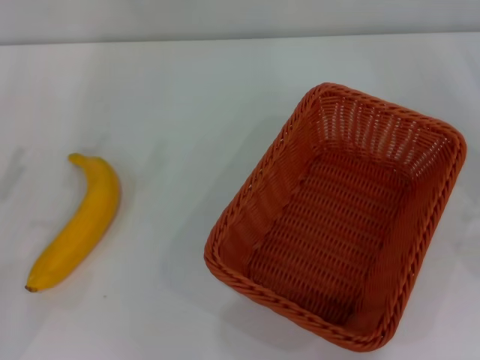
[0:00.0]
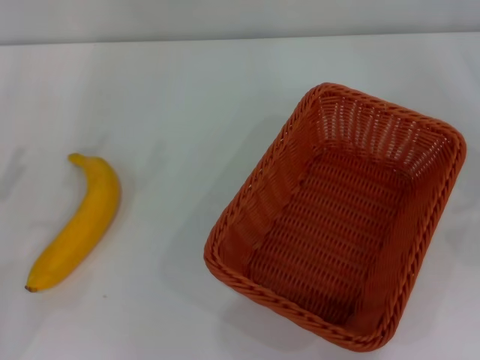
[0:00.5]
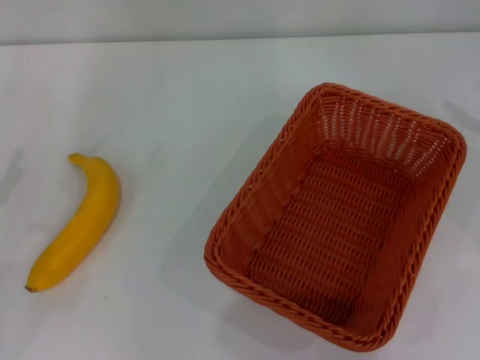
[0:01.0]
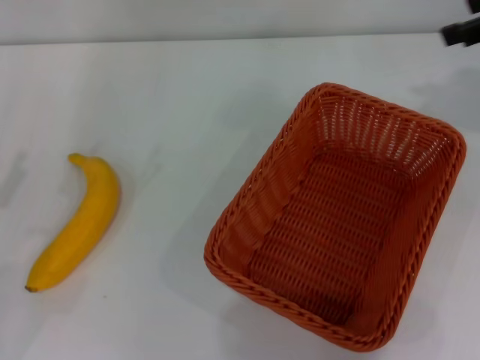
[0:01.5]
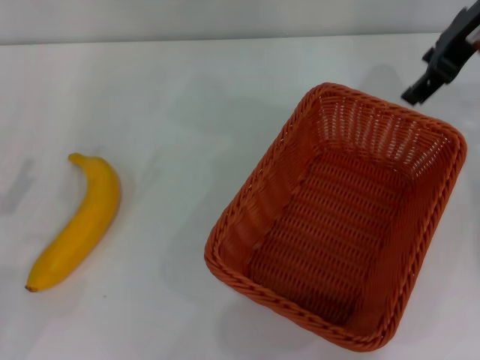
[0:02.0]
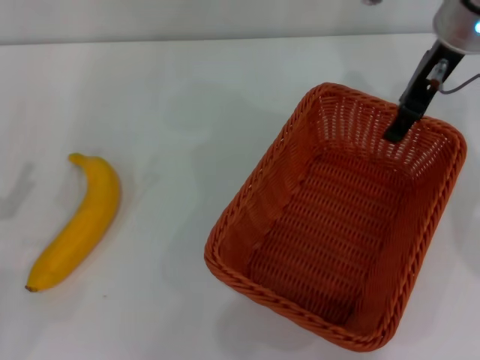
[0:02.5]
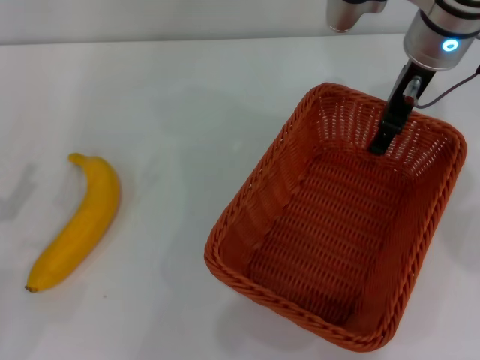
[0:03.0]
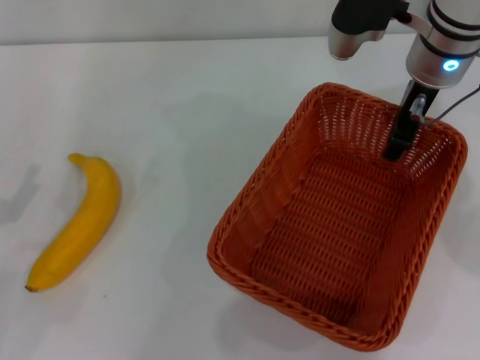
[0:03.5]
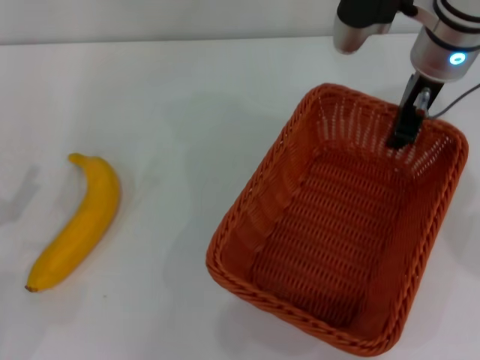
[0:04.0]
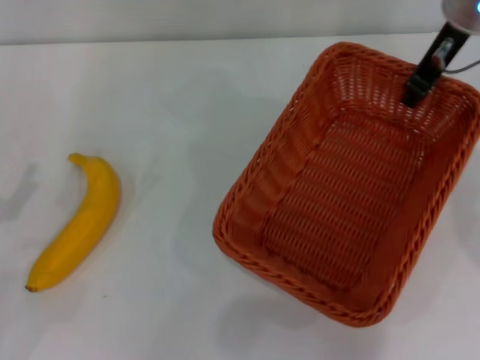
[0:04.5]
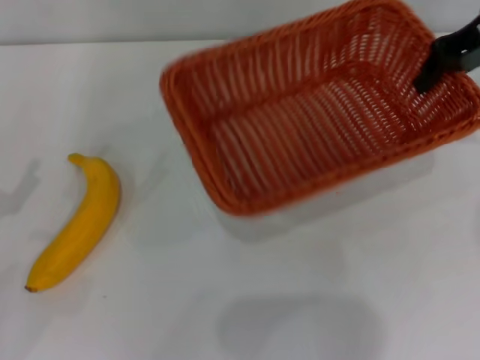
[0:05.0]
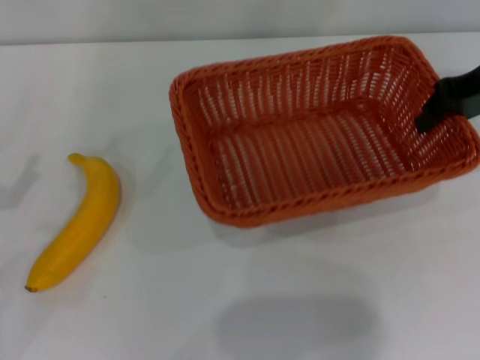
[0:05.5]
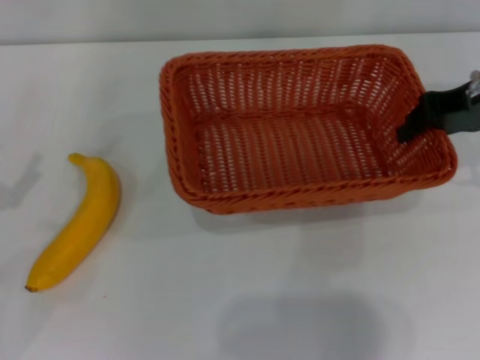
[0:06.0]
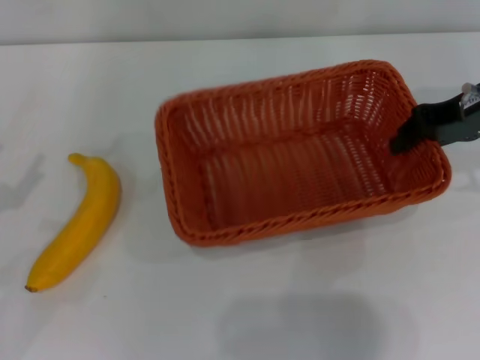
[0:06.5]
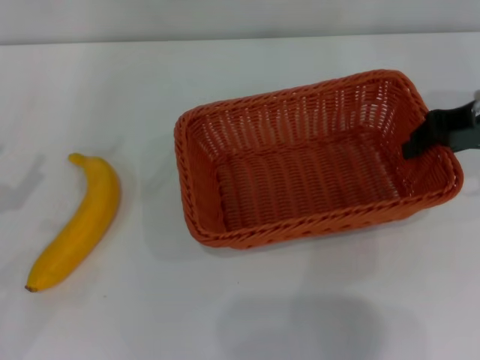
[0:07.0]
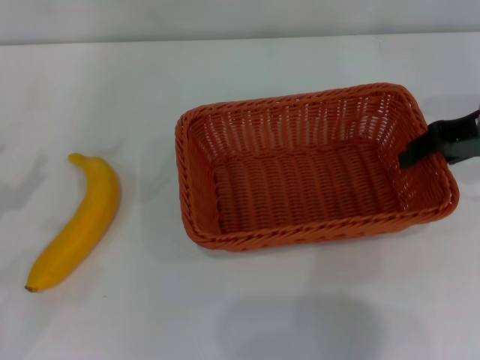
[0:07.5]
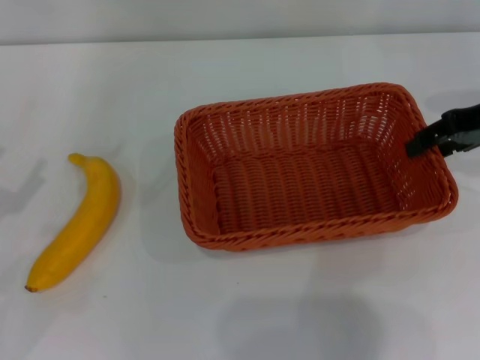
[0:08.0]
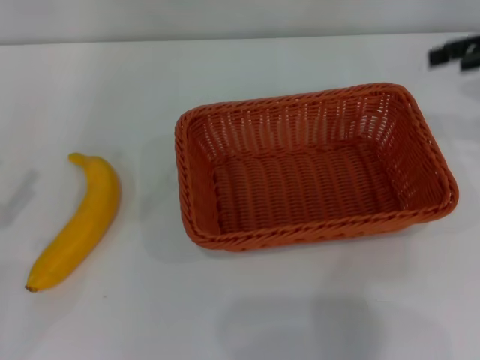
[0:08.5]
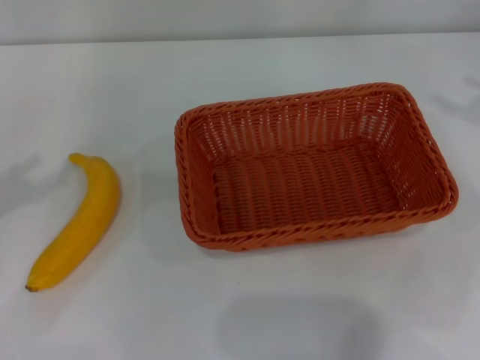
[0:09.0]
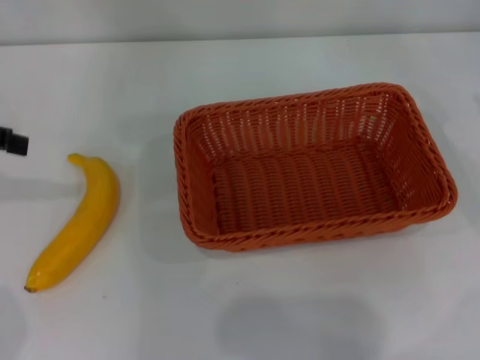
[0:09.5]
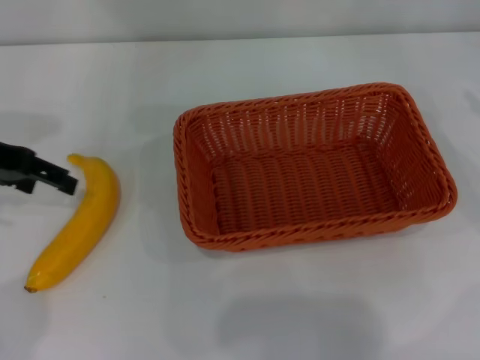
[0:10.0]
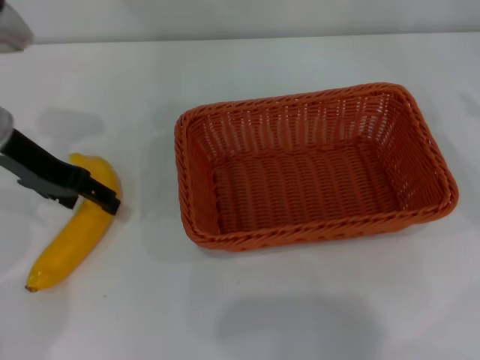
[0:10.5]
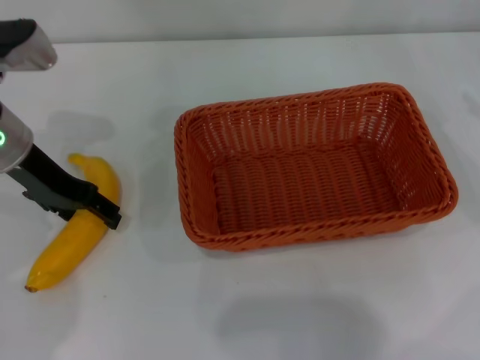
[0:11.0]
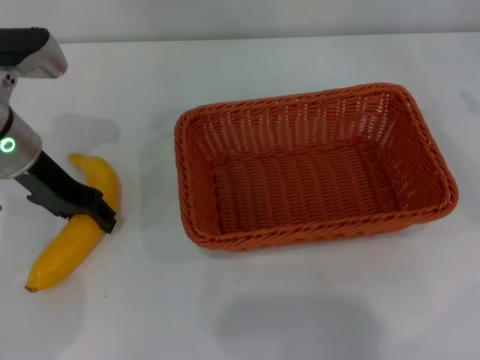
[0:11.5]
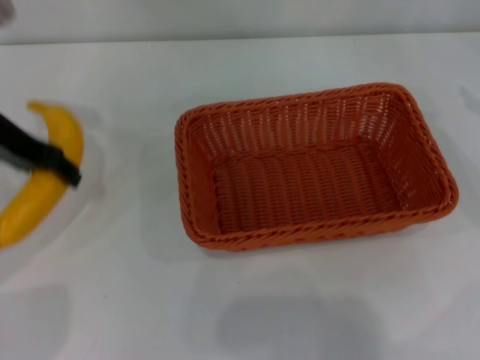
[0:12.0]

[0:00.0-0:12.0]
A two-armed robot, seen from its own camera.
Step, 0:00.0 to 0:04.5: Pick up the light basket with the right gripper.
Step, 0:05.0 to 0:08.5: Place the light basket in the center of view with the right gripper.
Step, 0:09.0 to 0:12.0: Pick up the banana with the left gripper.
0:00.0 to 0:02.0: The right gripper goes roughly 30 cm to the left, forward and upward.
0:02.0 to 0:04.0: The right gripper is displaced downward and to the left by approximately 10 cm, and closes.
0:04.0 to 0:06.0: The right gripper heads to the right, covering approximately 10 cm.
0:06.0 to 0:08.0: The right gripper opens.
0:08.0 to 0:10.0: The right gripper moves to the right, roughly 15 cm, and opens its fingers, while the left gripper shifts some 20 cm forward and upward.
0:10.0 to 0:12.0: The left gripper shifts approximately 5 cm to the right, and closes its fingers.

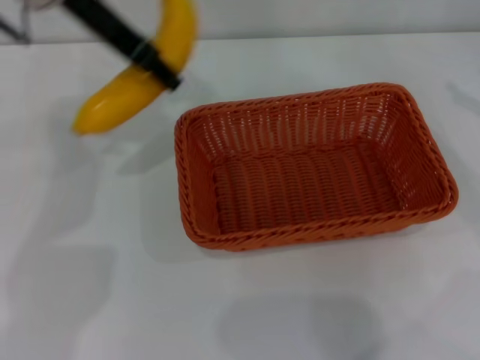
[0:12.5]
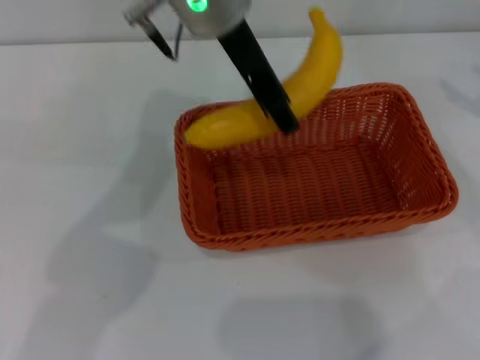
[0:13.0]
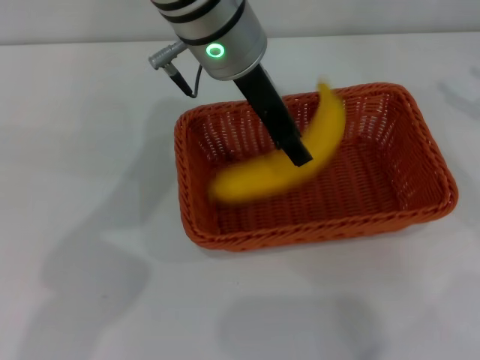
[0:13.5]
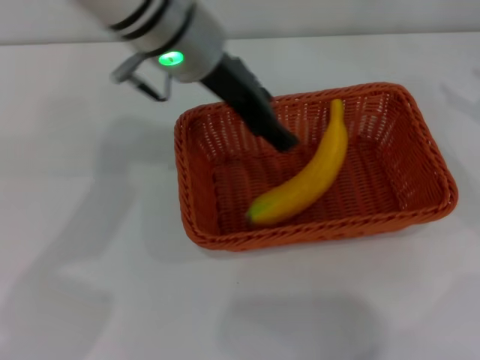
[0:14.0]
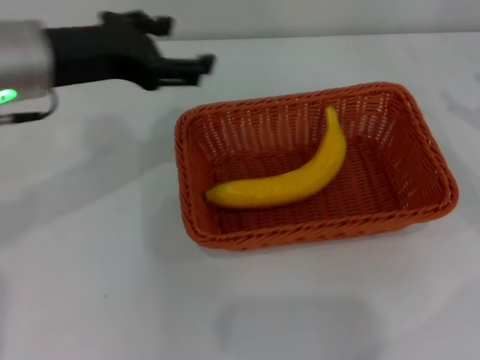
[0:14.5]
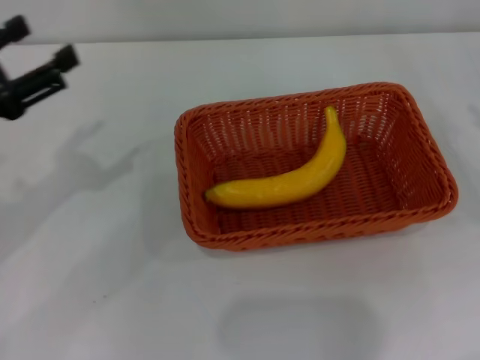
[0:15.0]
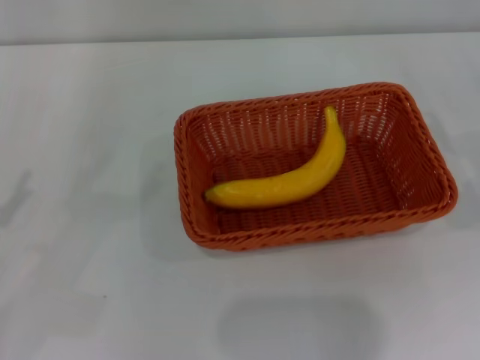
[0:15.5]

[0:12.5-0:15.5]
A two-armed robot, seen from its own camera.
Step, 0:12.5 to 0:14.0: Place the banana into the light basket with the left gripper.
0:12.5 to 0:14.0: The left gripper travels to the right and downward by approximately 10 cm, and opens.
0:14.0 to 0:15.5: The right gripper goes some 10 cm downward, while the left gripper travels to the left, backward and downward by approximately 40 cm.
